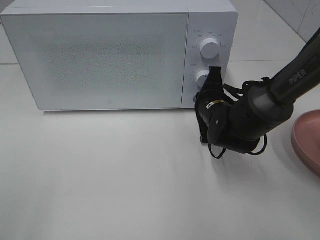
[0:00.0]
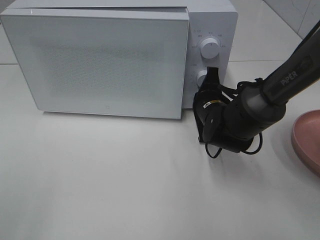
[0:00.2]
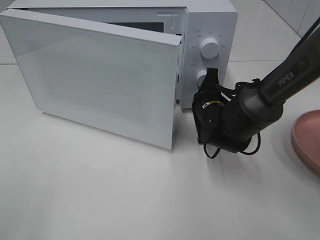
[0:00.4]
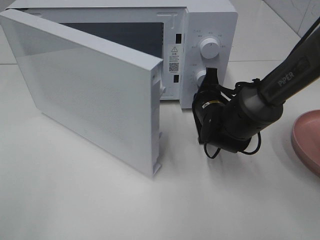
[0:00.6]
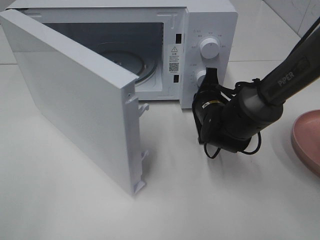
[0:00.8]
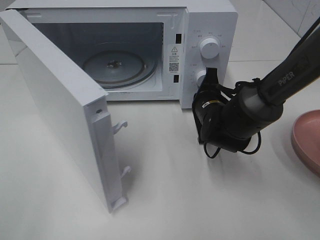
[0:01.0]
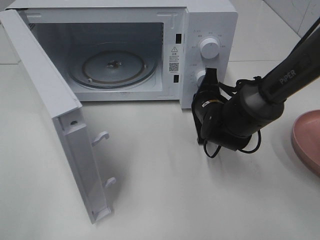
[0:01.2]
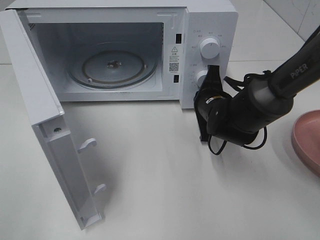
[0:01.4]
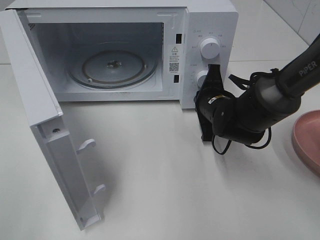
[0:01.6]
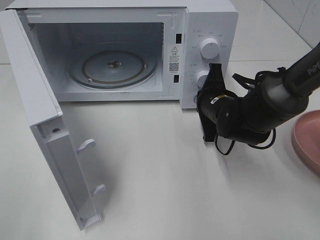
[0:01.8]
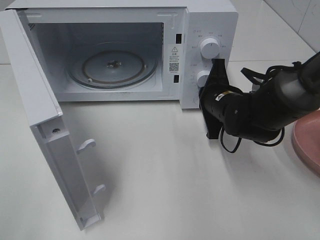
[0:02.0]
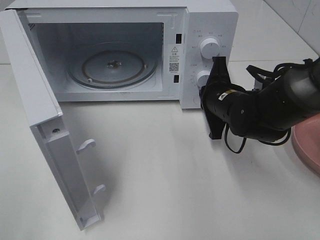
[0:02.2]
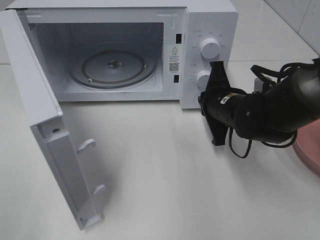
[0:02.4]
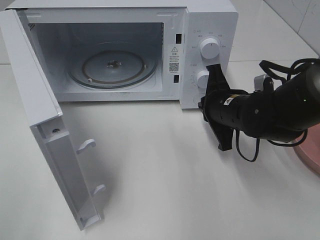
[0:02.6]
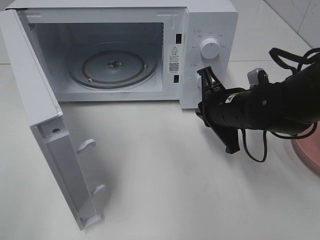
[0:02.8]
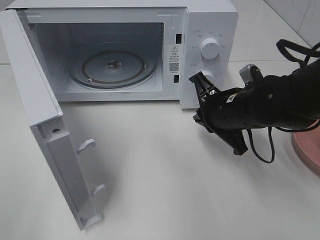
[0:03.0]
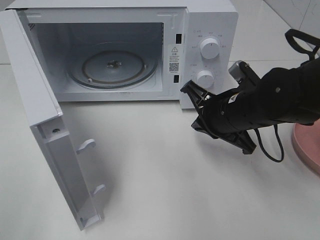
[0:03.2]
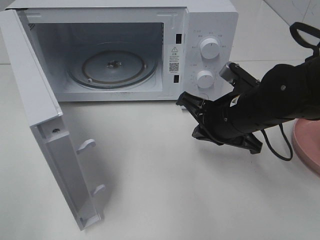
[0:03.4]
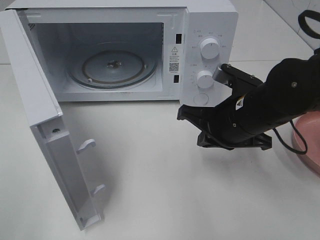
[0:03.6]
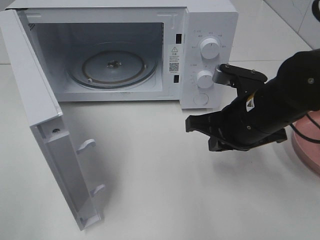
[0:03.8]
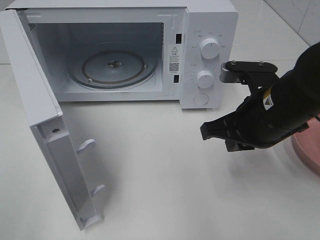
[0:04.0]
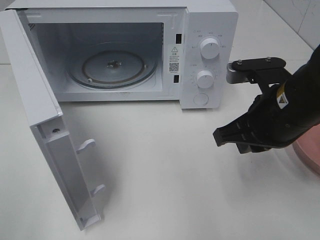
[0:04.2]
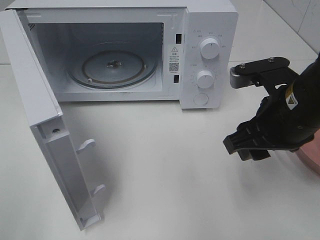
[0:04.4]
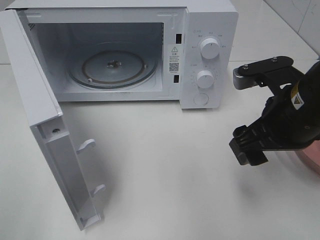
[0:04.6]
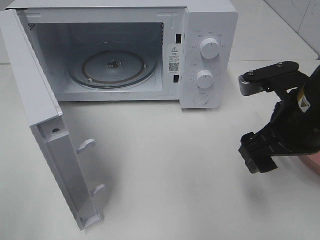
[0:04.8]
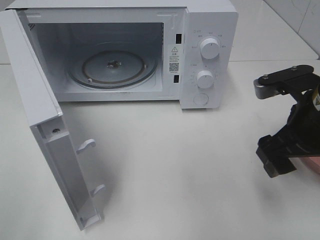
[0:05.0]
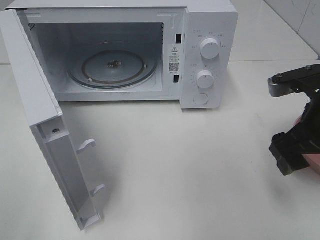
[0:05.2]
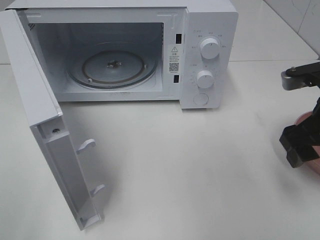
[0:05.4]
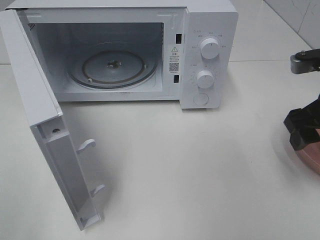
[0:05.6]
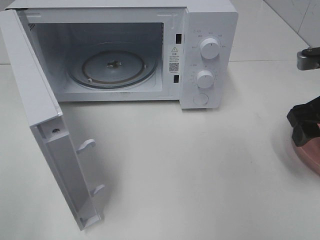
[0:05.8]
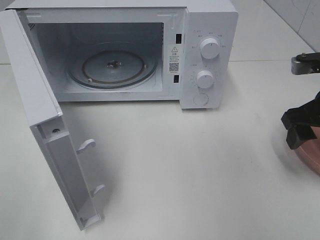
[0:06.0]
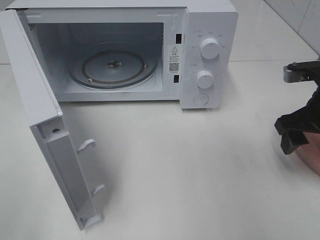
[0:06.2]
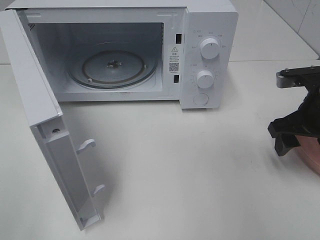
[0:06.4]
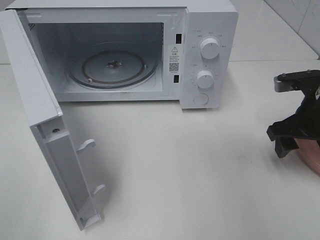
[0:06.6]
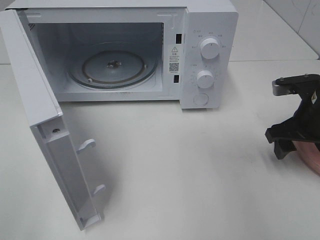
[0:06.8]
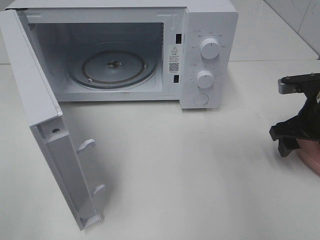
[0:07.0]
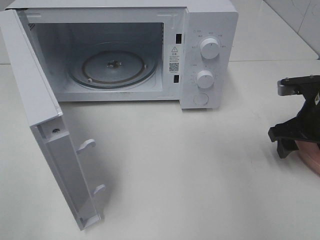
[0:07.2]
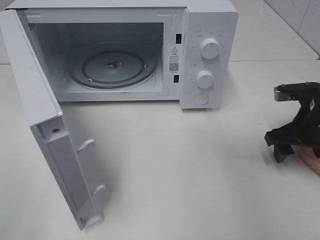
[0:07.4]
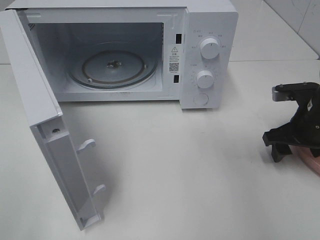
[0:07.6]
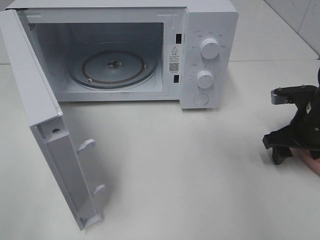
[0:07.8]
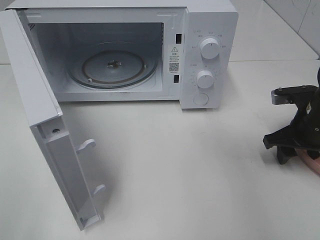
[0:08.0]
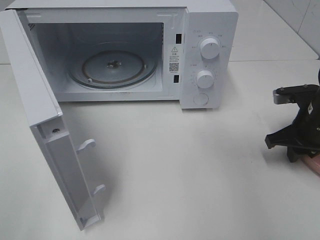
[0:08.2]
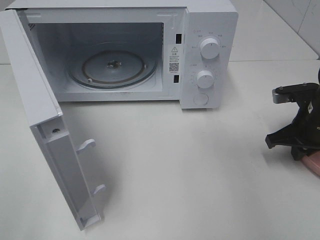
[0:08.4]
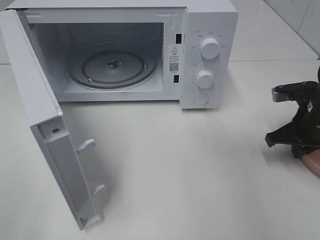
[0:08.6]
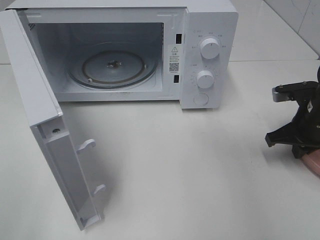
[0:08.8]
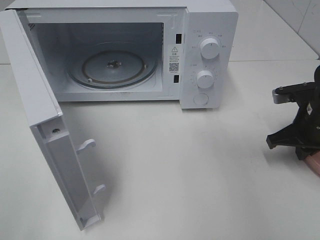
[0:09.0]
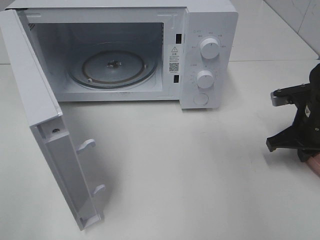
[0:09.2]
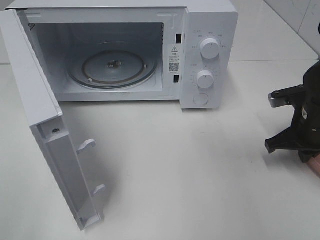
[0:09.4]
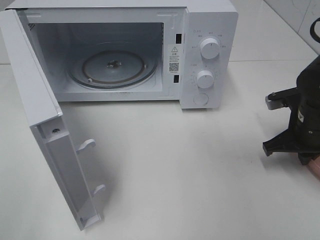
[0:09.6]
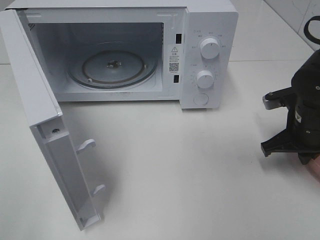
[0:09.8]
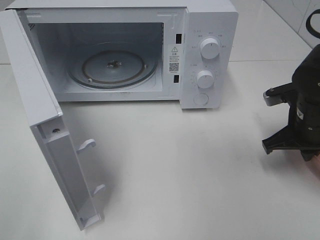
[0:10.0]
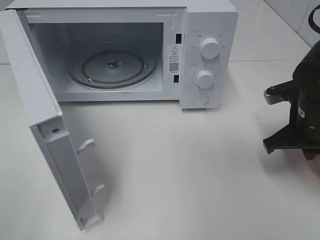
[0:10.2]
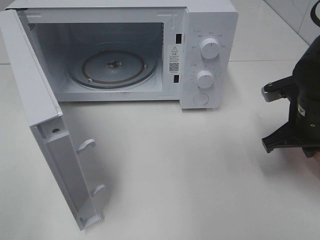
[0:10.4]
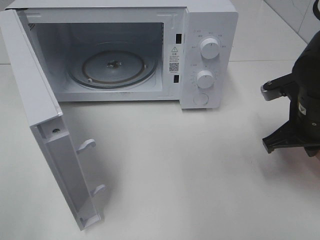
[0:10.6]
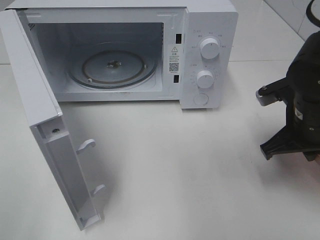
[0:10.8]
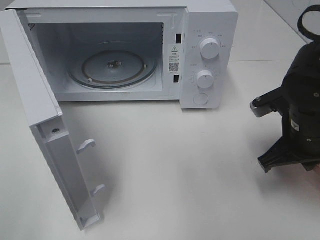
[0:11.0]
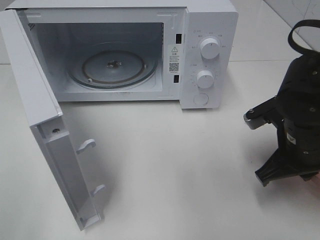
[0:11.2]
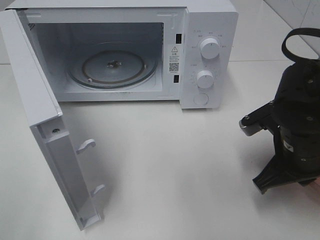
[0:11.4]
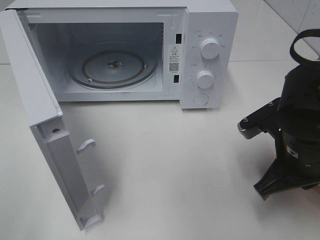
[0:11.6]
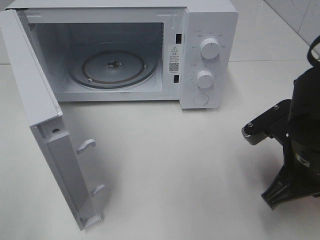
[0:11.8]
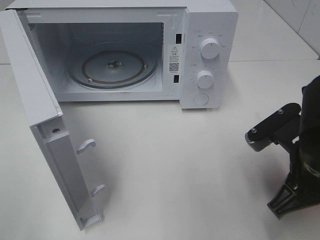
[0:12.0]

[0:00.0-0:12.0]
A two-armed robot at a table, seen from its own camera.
Task of the whole recording: Heat the burger.
Step, 0:00.0 to 0:02.4: Right hand: press the switch.
Step, 0:02.6 to 0:09.6: Right hand: grab the plate with the hamburger.
0:01.6 to 0:03.0: The right gripper is displaced backward by roughly 5 cm.
0:03.0 to 0:04.4: The right gripper moves upward and backward, approximately 10 cm, and opens its fingers.
0:04.4 to 0:06.0: The right gripper heads to the right, covering some 10 cm.
0:06.0 to 0:07.6: The right gripper shifts approximately 10 cm downward.
0:07.6 to 0:09.0: The right gripper closes its fingers.
0:09.0 to 0:10.4: The right gripper ends up about 5 cm from where it was.
0:10.4 to 0:12.0: The right gripper is displaced backward by approximately 10 cm.

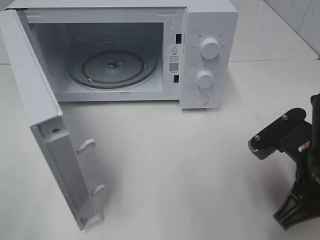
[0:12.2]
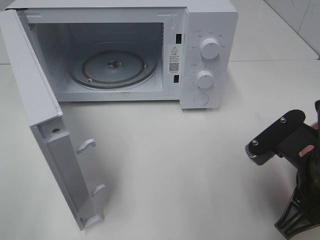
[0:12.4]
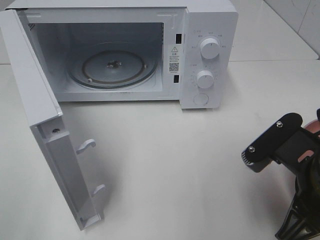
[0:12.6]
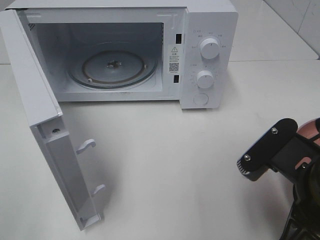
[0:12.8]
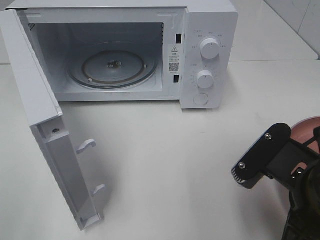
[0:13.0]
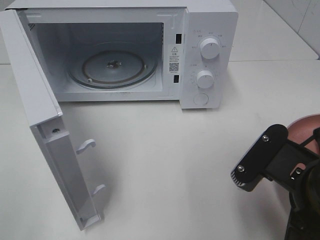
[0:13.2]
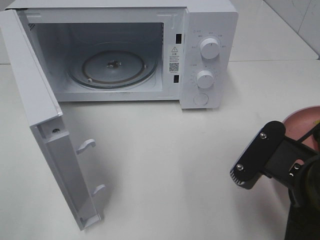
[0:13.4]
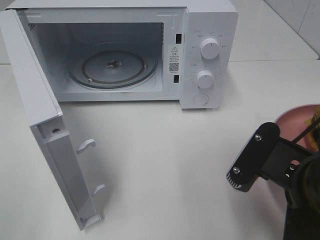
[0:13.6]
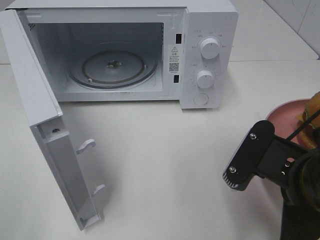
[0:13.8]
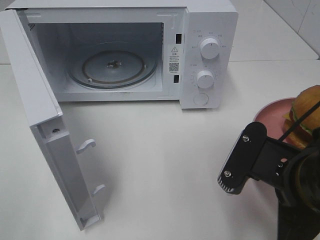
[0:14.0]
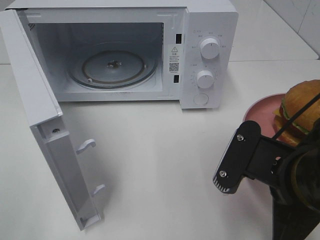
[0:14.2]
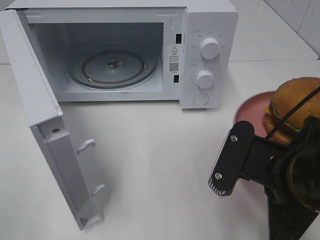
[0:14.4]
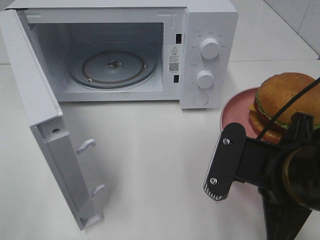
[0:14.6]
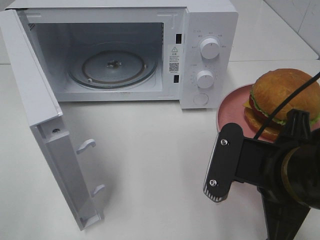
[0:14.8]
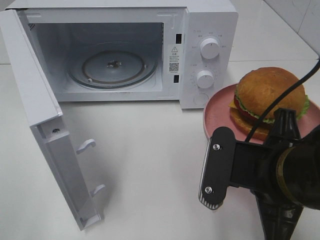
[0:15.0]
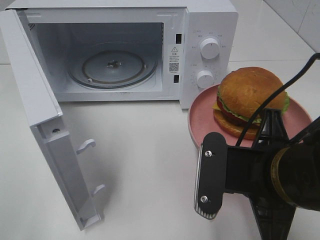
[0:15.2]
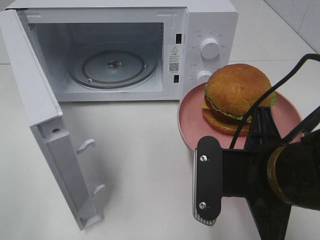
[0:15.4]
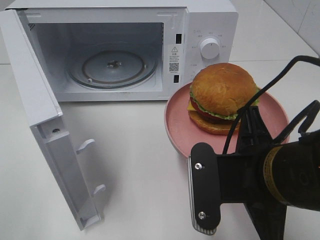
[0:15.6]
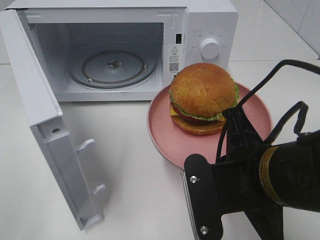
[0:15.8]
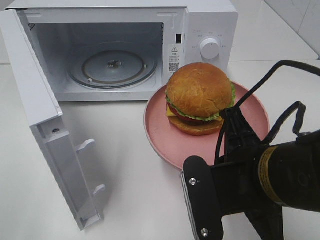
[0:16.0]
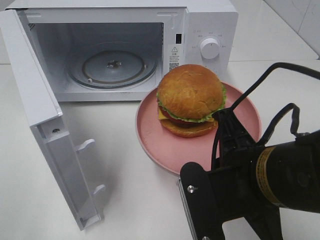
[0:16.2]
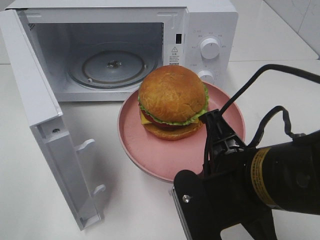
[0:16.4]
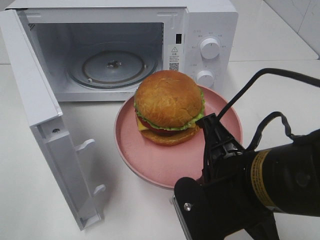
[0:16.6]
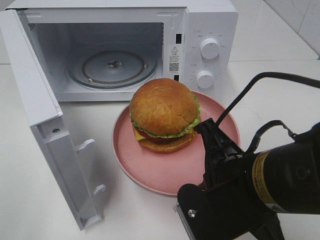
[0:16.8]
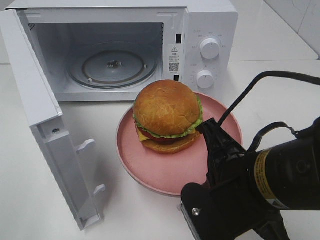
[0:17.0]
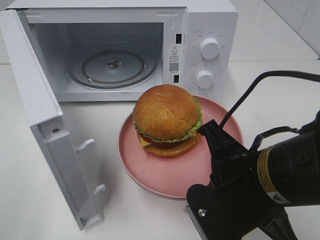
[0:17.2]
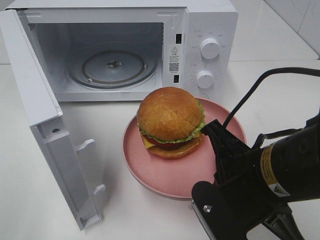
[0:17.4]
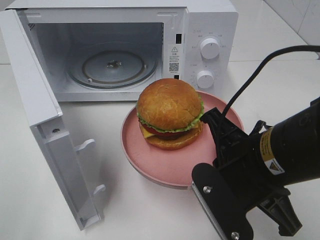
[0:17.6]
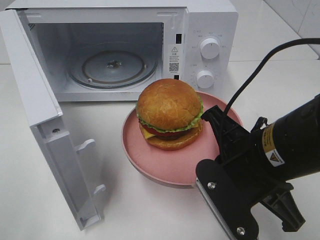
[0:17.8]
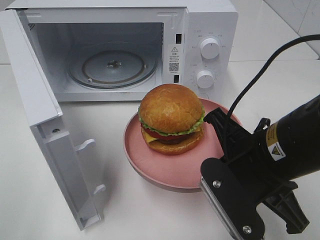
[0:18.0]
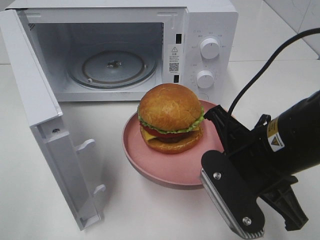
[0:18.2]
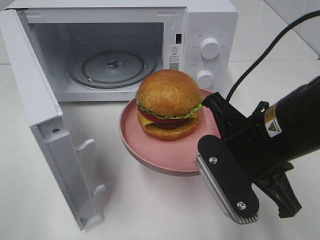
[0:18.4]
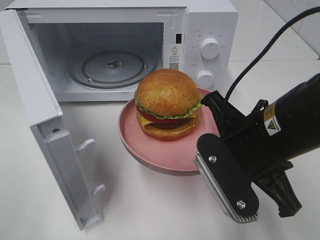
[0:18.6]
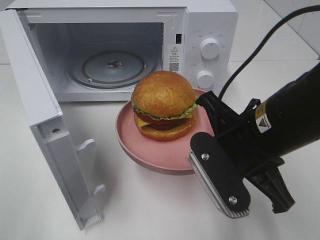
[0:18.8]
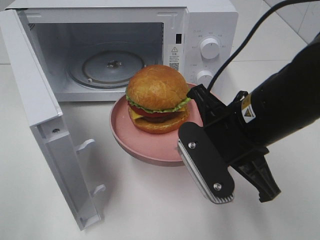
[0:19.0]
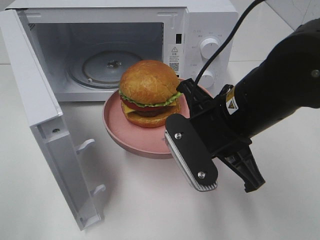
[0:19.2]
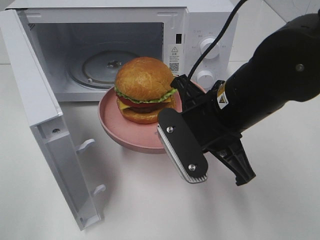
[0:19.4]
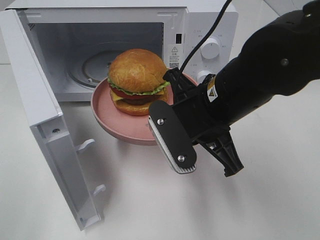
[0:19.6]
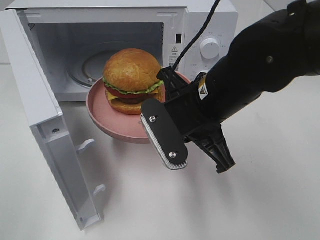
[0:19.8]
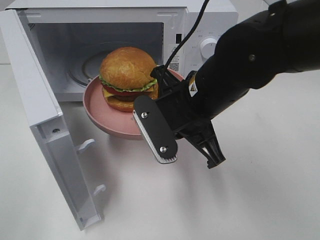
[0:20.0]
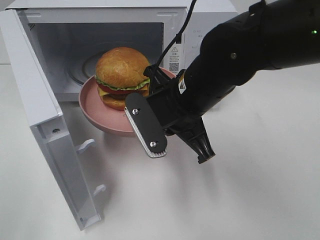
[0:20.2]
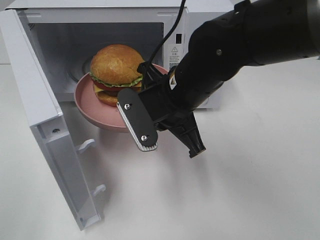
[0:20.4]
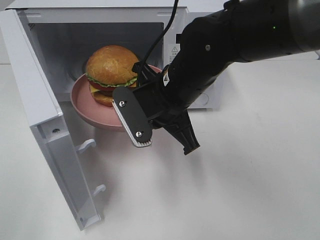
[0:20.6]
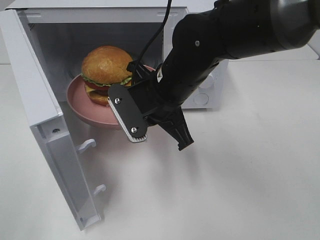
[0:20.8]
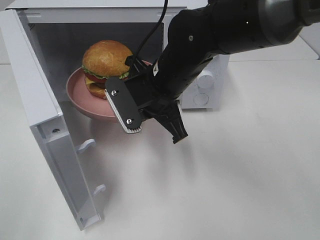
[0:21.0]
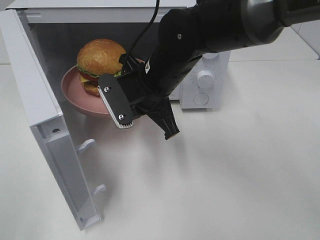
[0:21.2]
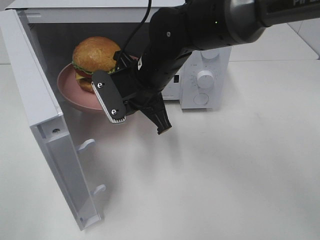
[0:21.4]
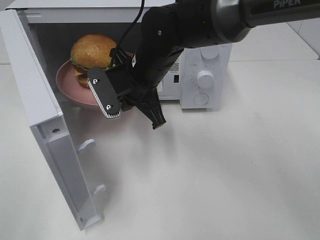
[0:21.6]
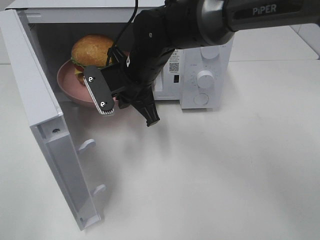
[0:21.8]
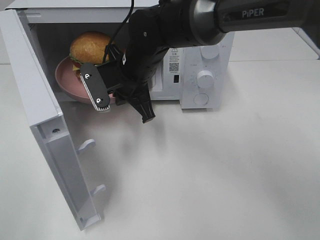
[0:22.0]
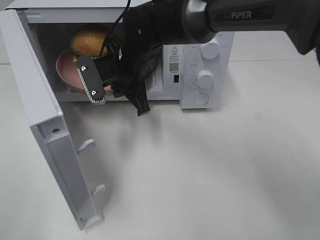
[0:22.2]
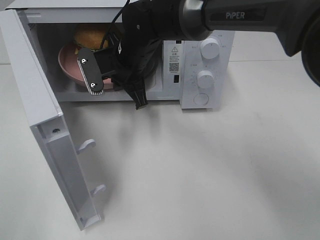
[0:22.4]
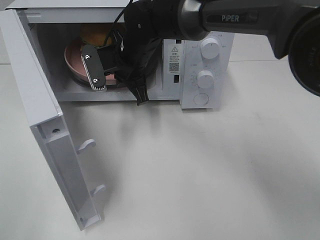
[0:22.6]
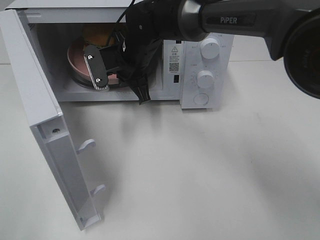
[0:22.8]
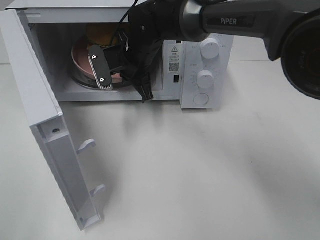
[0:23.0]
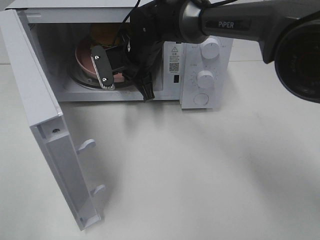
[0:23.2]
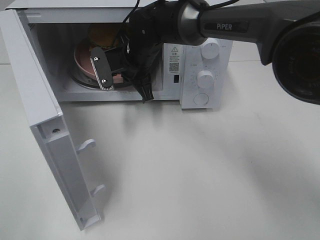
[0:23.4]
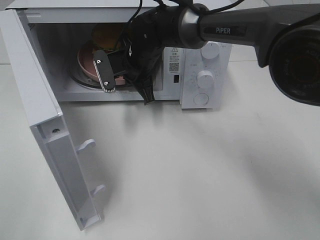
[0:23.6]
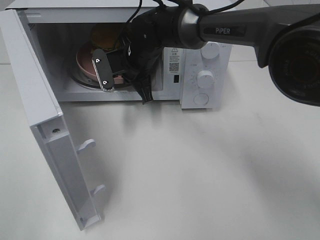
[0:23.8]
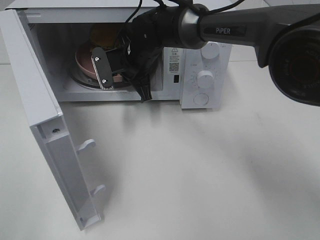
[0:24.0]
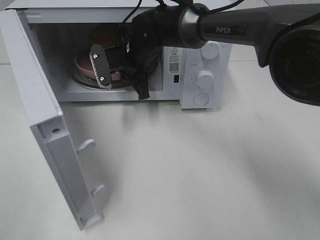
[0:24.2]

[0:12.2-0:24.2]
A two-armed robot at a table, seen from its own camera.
Task of the whole recording: Heat the burger.
0:16.6 to 0:18.2: The right gripper ends up roughly 5 cm from where it was.
0:18.2 to 0:19.8: The right gripper is displaced forward and to the left by approximately 10 cm.
0:19.8 to 0:21.2: The right gripper travels forward and to the left by roughly 10 cm.
0:21.2 to 0:22.6: The right gripper shifts roughly 10 cm forward.
0:22.6 to 0:24.2: The grippers make only small movements.
